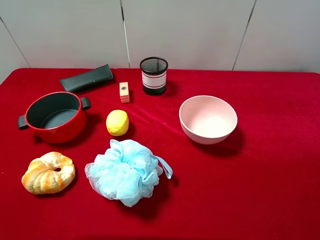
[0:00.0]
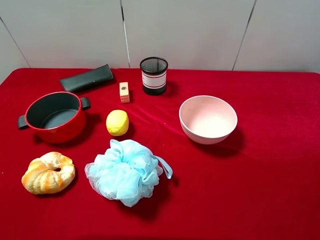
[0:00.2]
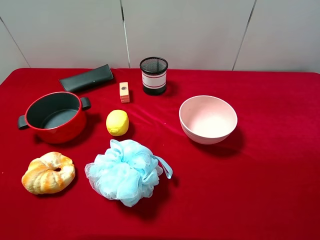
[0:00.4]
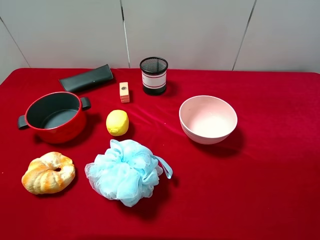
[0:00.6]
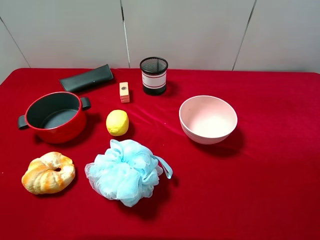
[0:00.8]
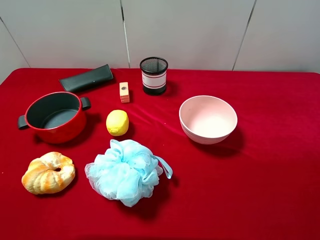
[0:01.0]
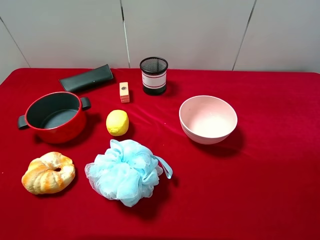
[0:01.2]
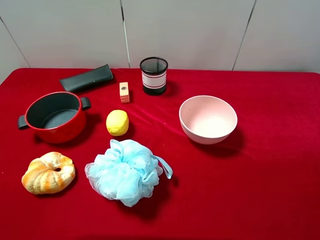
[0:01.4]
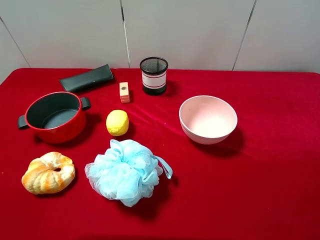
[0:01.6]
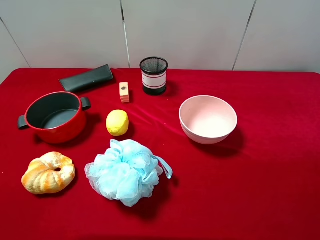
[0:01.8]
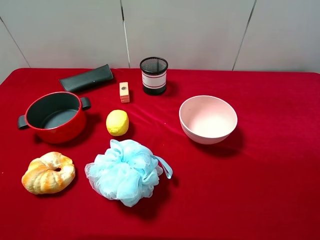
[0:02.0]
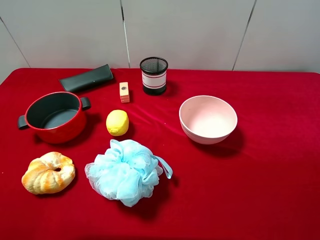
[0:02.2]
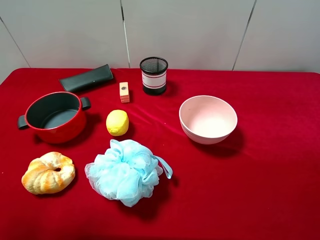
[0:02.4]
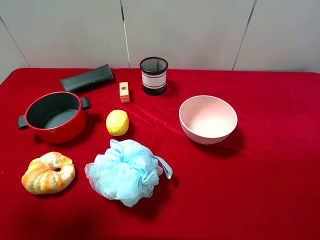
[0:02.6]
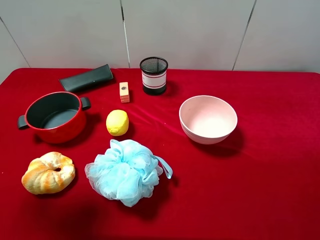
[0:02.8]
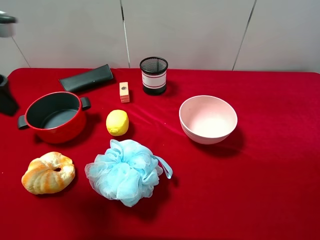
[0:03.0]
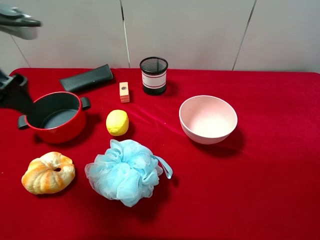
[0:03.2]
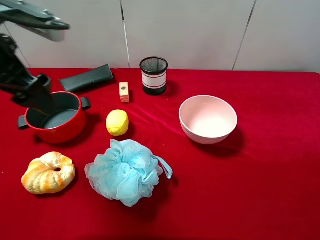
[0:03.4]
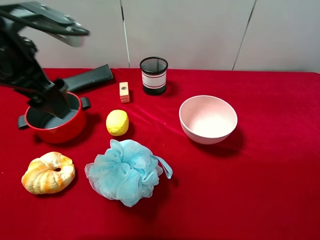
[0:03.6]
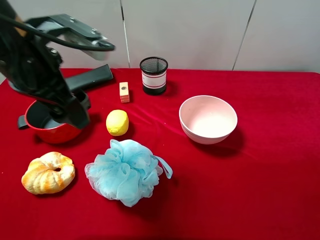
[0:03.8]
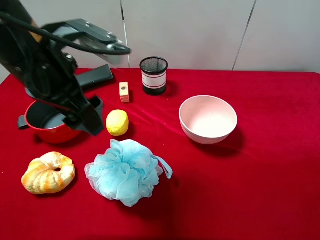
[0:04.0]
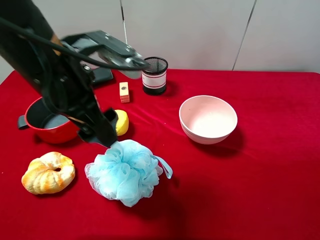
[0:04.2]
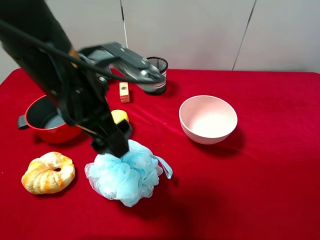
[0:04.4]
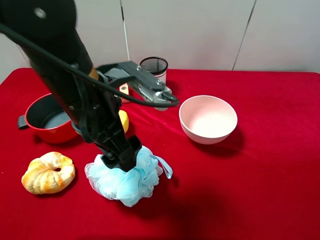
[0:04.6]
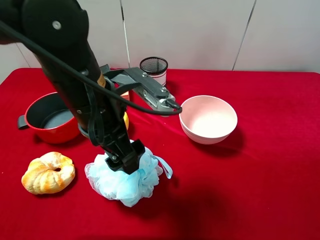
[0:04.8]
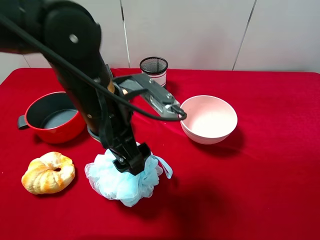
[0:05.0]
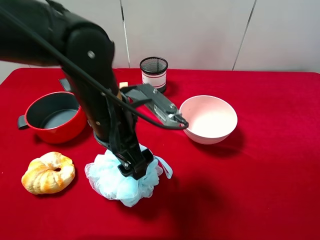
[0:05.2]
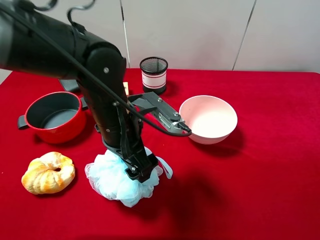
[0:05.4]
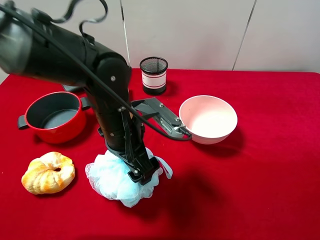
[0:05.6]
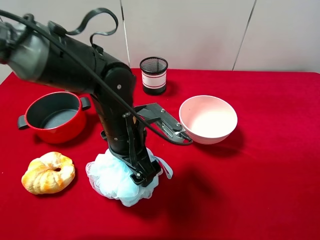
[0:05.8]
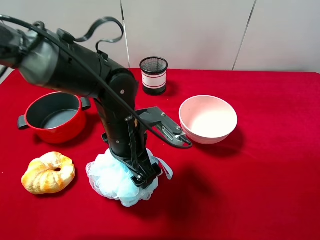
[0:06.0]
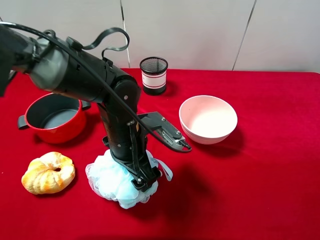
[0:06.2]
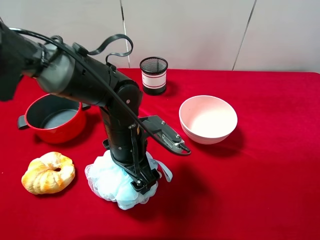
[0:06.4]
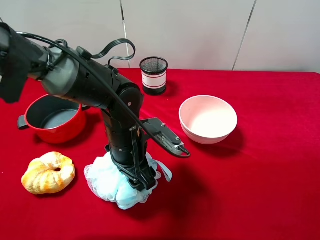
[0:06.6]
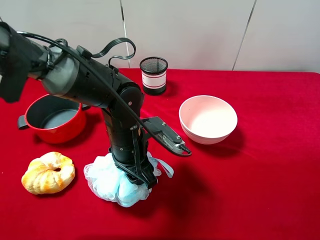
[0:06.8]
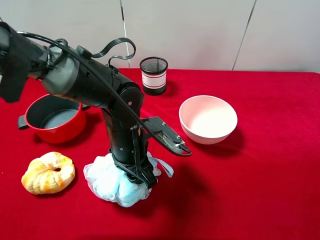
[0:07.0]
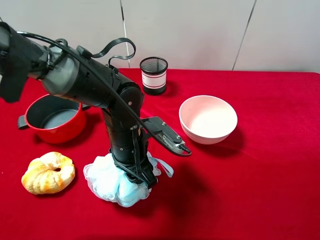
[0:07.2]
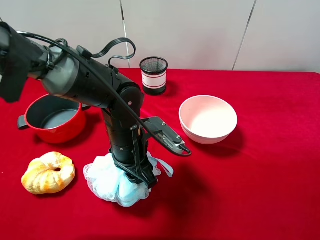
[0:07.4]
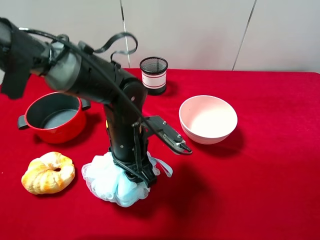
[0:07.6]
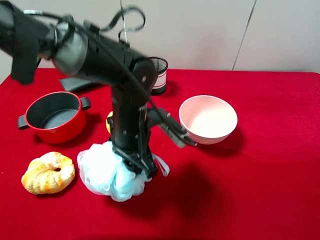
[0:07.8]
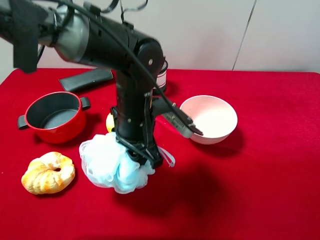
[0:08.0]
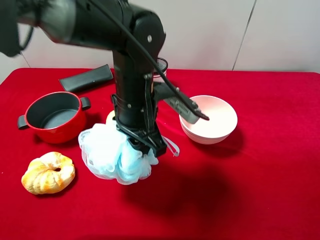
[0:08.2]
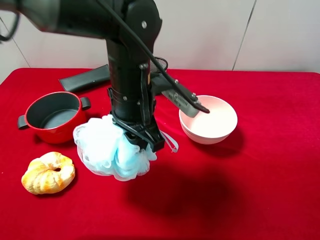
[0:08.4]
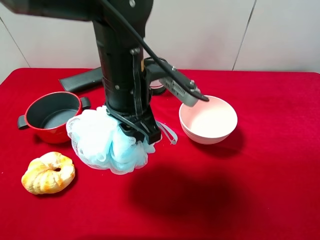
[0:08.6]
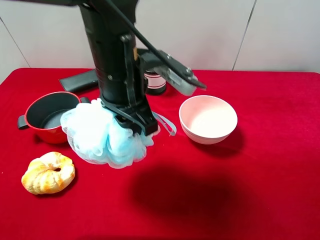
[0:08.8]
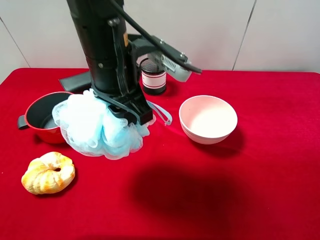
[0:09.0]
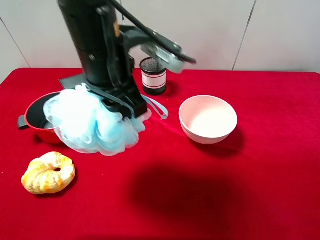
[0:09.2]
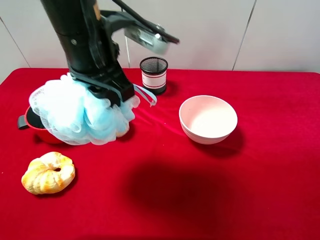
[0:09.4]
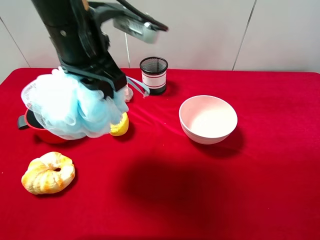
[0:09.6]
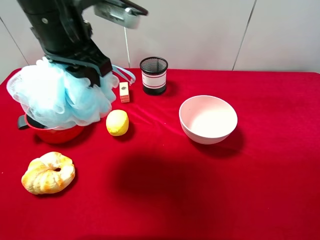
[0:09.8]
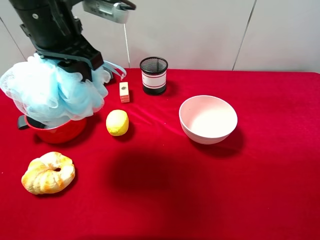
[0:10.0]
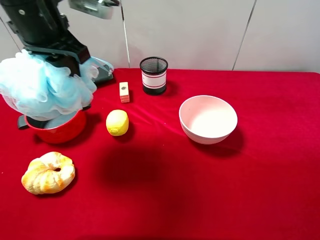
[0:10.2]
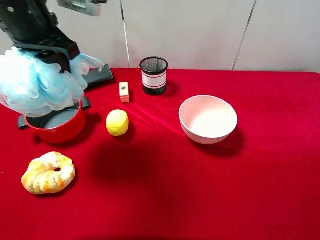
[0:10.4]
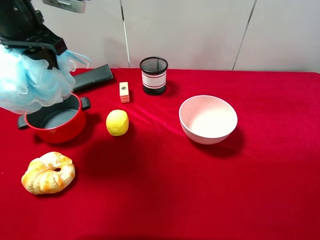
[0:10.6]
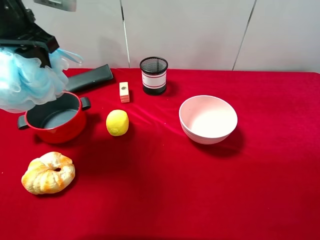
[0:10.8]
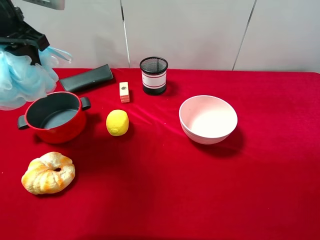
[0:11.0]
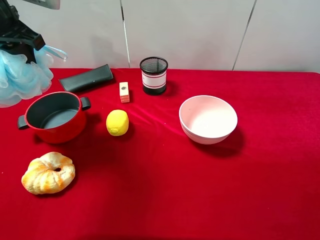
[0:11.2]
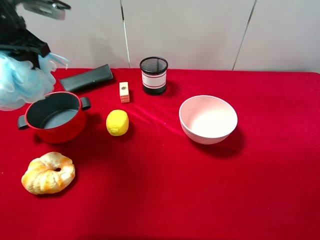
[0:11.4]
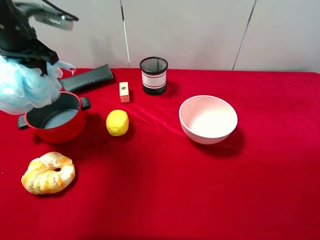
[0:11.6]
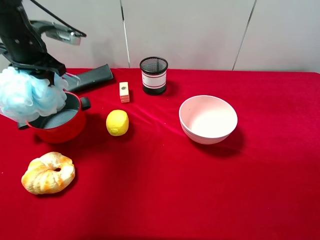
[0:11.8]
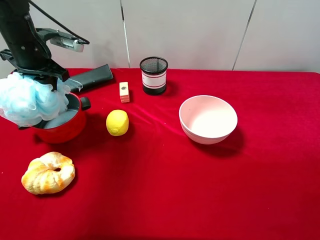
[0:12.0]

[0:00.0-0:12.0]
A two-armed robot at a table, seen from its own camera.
Task of the whole recording: pick up an item with a gripper and place it in a random container on the desktop.
1.6 to 3.0 s: The left gripper heads forward, covering about 20 cm.
3.0 to 4.4 s: The left gripper heads to the right, covering roughly 20 cm.
4.4 to 6.0 s: The left gripper moves downward and to the right, about 15 cm.
6.0 to 7.6 s: The left gripper closes up.
7.6 to 9.0 s: The left gripper goes some 15 cm upward.
9.0 to 10.4 s: The left gripper is displaced to the left and forward by approximately 15 cm.
10.4 to 12.0 s: The left gripper is displaced downward, to the left and forward by some 15 cm.

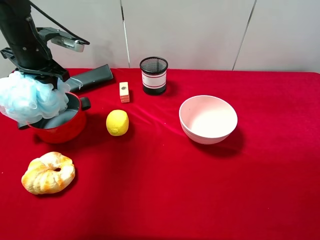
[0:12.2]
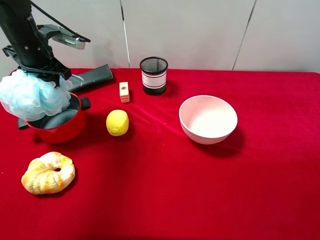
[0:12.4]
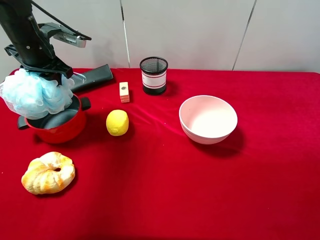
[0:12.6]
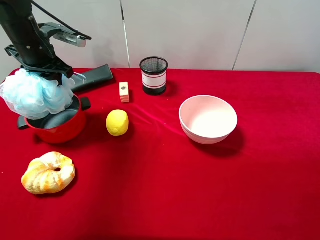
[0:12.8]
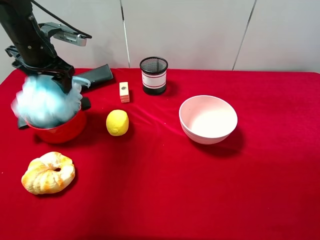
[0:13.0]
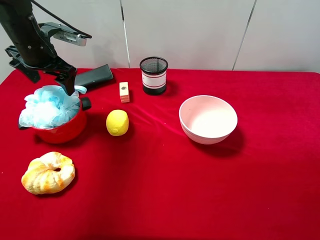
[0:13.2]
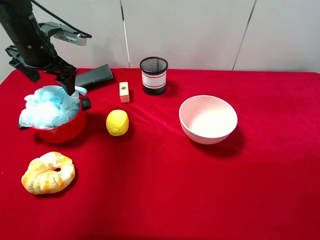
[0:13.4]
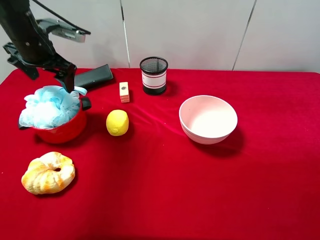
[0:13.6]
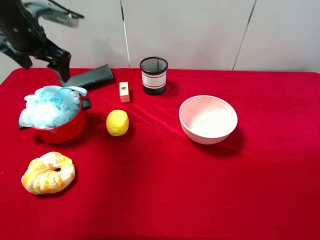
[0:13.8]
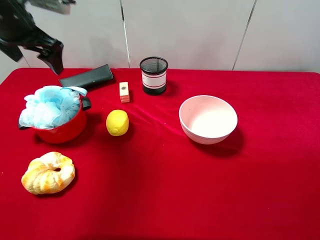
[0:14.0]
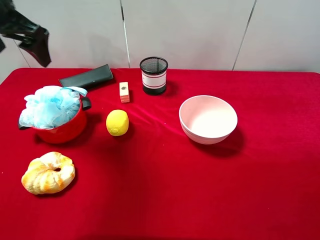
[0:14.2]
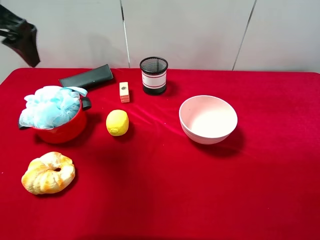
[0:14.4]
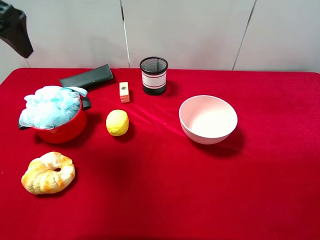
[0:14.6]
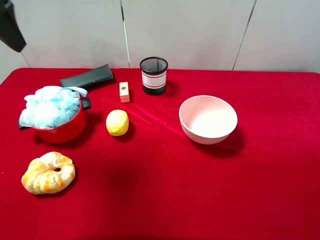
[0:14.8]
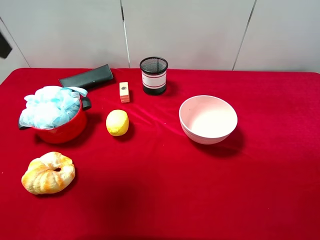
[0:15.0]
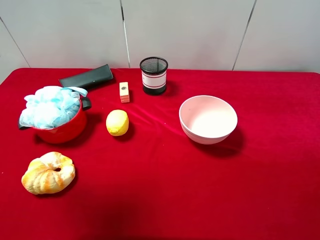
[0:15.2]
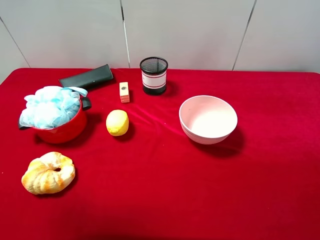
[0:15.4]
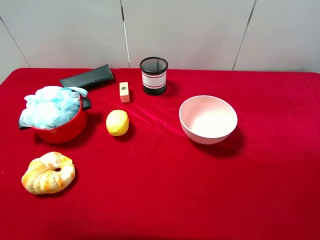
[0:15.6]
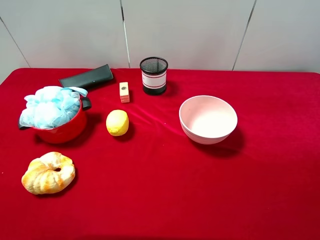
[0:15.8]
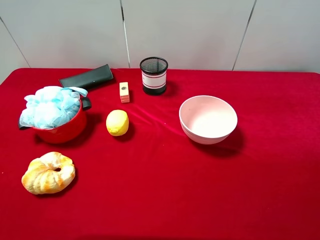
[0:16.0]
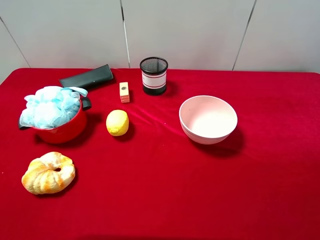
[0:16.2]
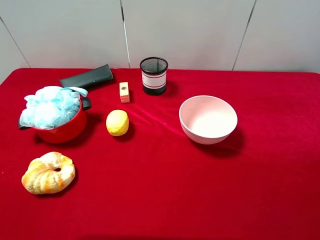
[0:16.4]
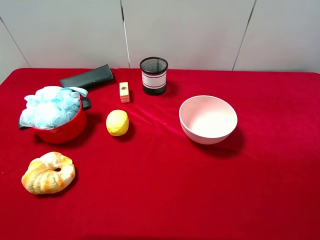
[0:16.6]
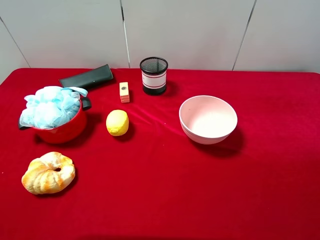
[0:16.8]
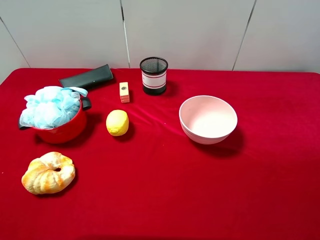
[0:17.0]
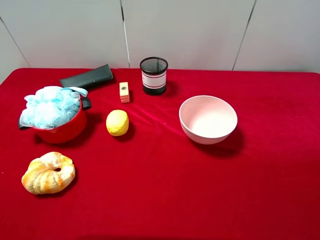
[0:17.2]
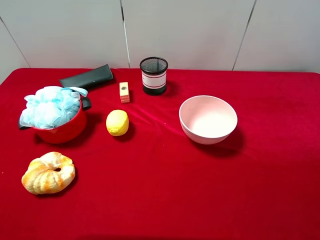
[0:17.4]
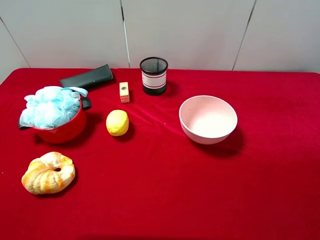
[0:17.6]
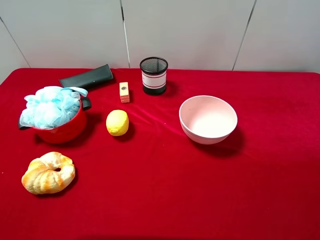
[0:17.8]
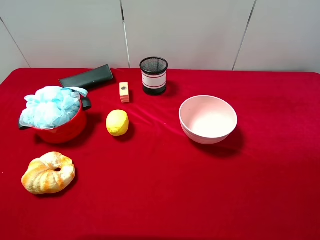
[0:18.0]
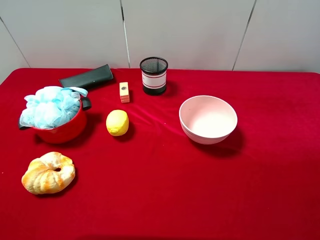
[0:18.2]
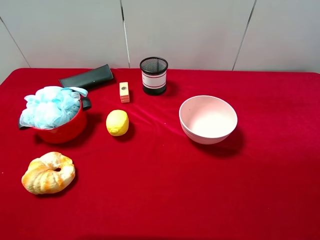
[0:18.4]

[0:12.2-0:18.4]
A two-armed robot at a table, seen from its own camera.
Task of the whole recording: pick up an item with a gripper and place it in a random container on the desktop.
12.2 to 13.8 s: The left gripper opens.
13.8 to 15.4 s: The left gripper shifts approximately 25 cm backward and upward.

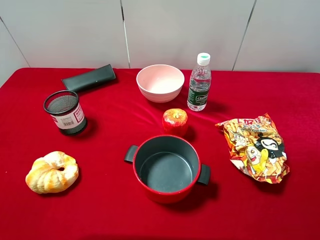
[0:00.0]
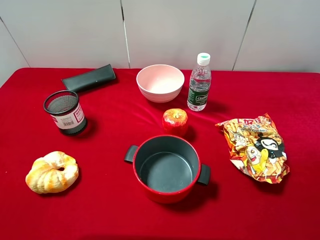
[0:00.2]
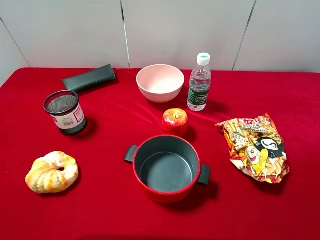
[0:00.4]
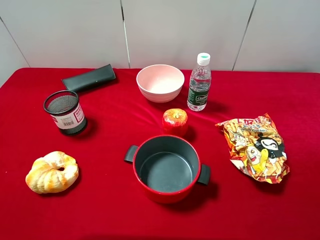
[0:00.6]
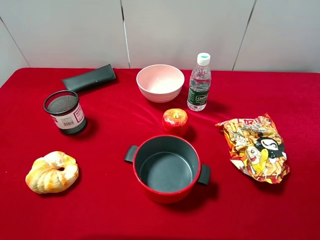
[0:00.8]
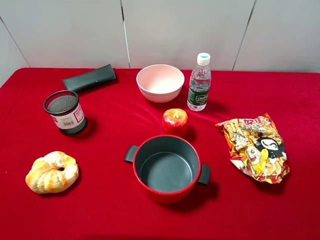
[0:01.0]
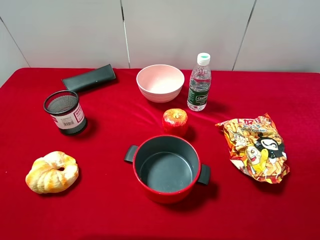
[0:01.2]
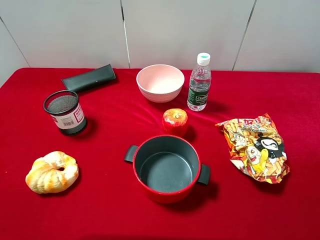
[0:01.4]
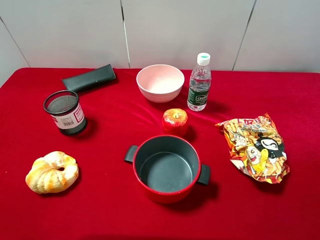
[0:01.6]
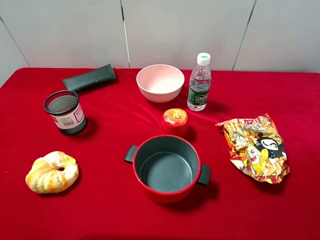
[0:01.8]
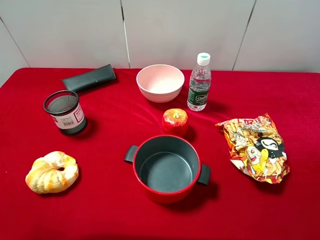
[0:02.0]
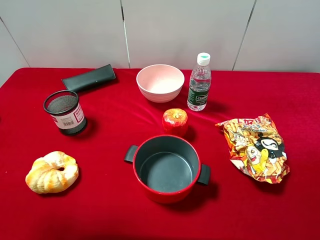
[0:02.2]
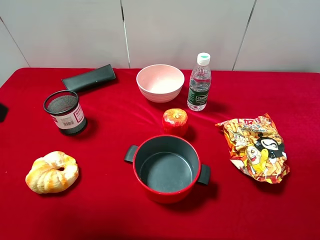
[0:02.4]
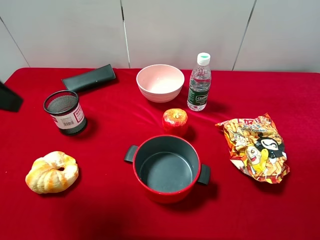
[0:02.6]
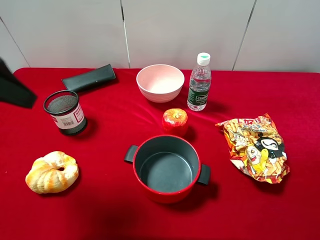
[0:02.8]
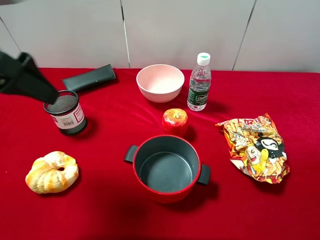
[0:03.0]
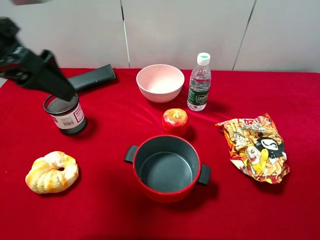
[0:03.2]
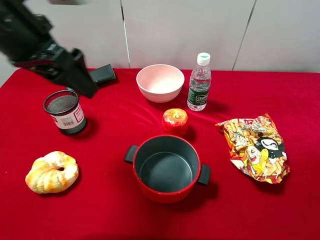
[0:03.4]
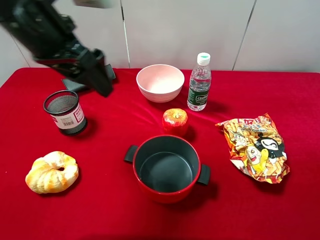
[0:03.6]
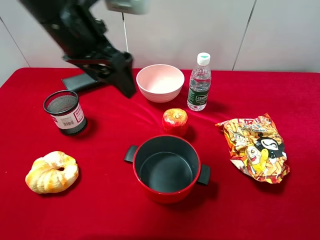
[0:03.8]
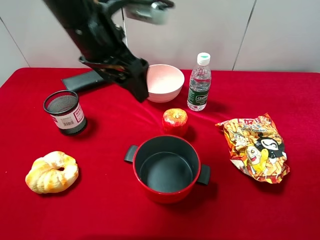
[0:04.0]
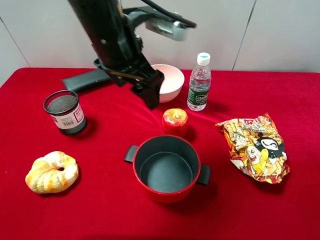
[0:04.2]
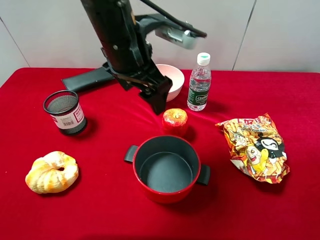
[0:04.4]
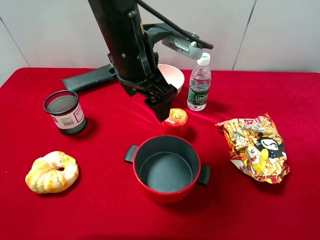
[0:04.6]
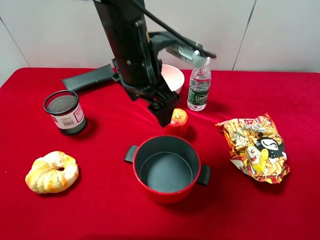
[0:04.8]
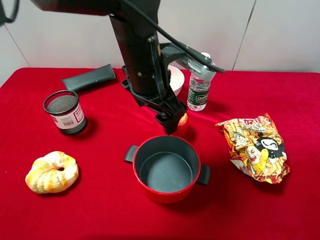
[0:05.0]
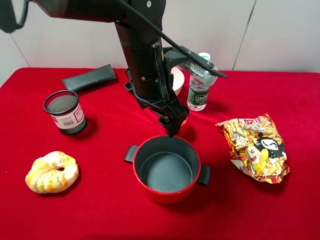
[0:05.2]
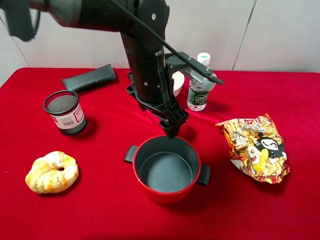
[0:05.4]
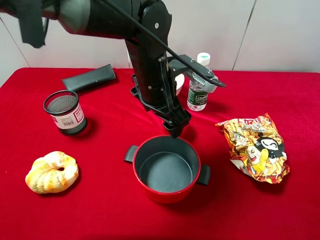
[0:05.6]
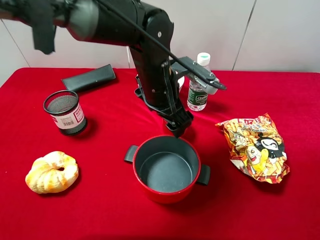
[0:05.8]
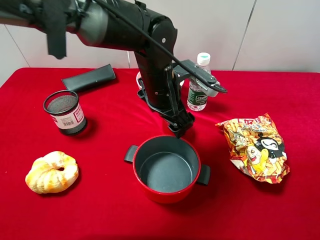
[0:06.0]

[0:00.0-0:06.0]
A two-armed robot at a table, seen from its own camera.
Task of the whole recording: pick up an item with a gripper and place it in a random container on the desktop.
1.6 to 3.0 s: The left gripper goes roughly 20 cm forward.
3.0 to 4.4 s: The left gripper is displaced to the right by roughly 20 cm.
4.4 to 6.0 s: The left gripper shifts some 10 cm downward and to the right.
